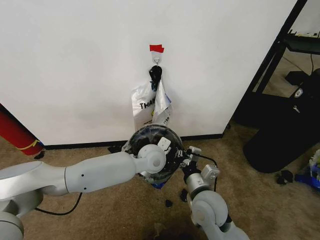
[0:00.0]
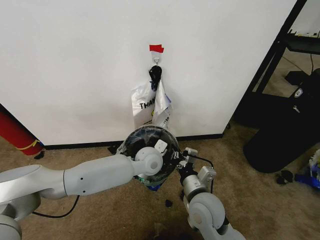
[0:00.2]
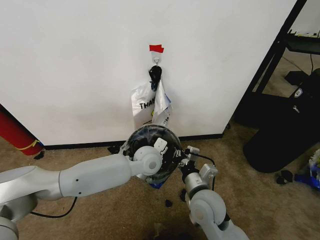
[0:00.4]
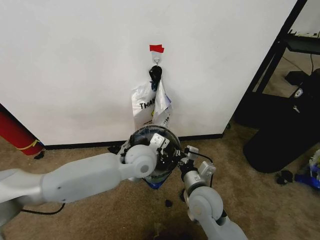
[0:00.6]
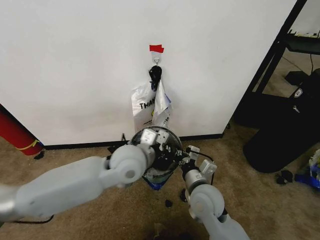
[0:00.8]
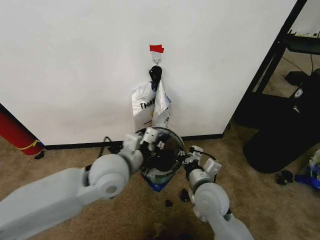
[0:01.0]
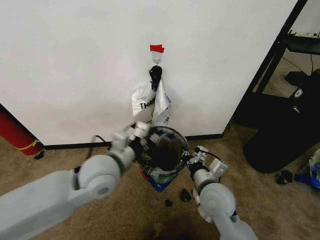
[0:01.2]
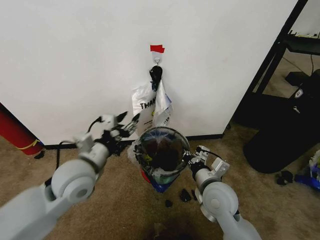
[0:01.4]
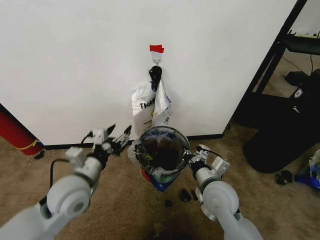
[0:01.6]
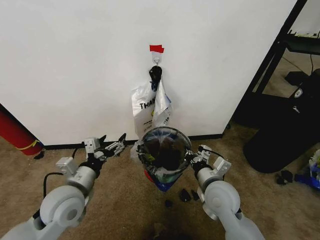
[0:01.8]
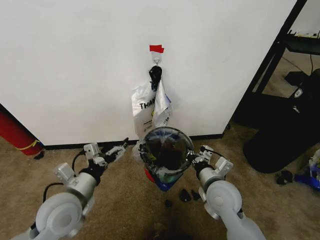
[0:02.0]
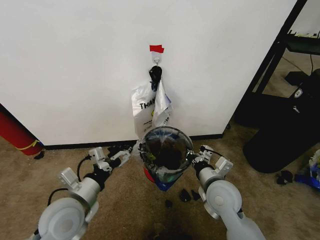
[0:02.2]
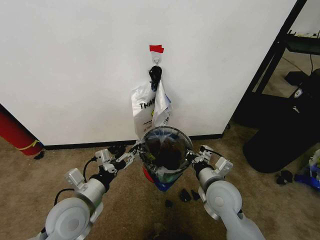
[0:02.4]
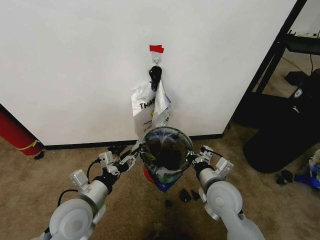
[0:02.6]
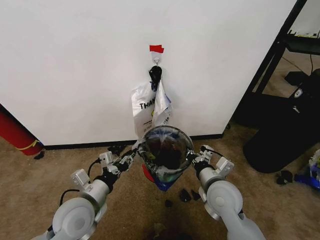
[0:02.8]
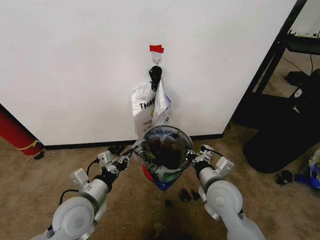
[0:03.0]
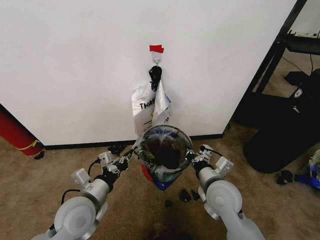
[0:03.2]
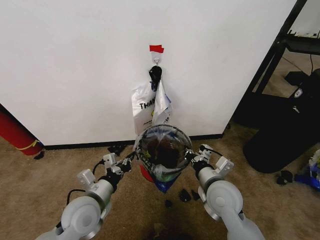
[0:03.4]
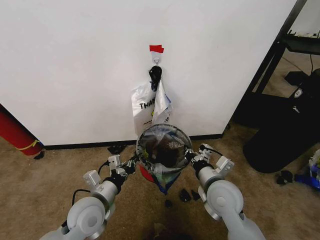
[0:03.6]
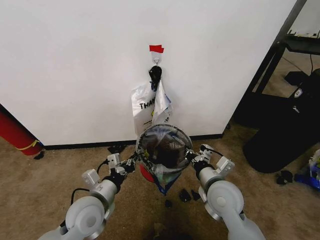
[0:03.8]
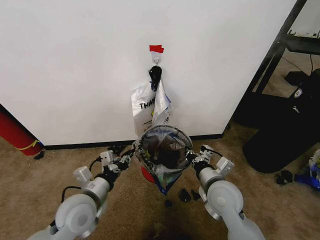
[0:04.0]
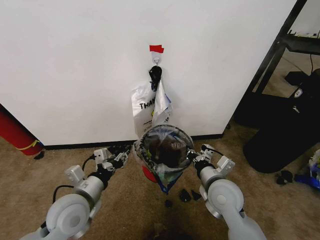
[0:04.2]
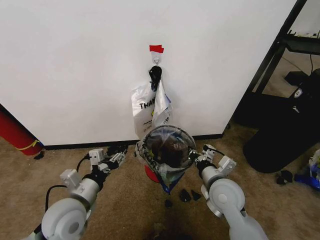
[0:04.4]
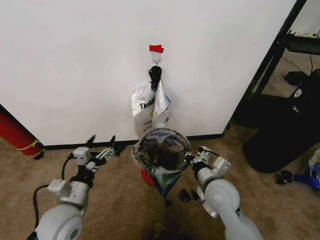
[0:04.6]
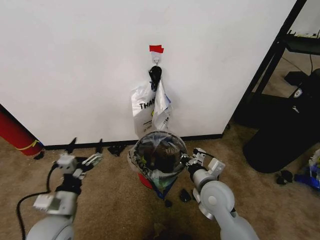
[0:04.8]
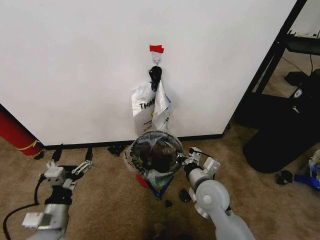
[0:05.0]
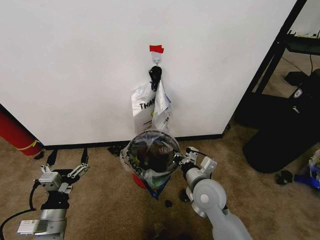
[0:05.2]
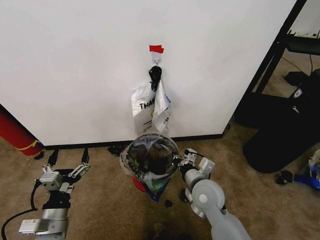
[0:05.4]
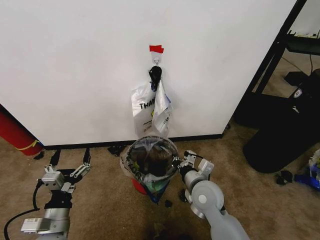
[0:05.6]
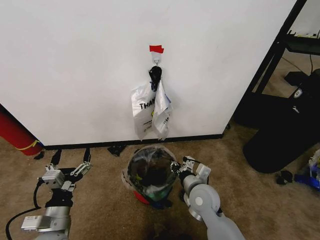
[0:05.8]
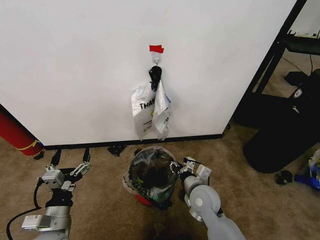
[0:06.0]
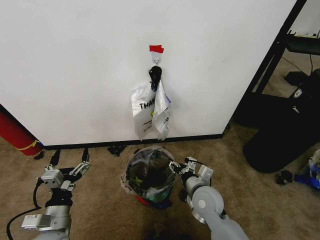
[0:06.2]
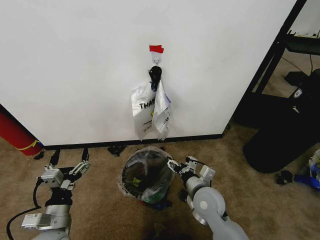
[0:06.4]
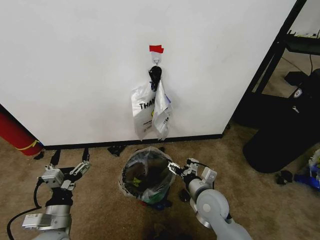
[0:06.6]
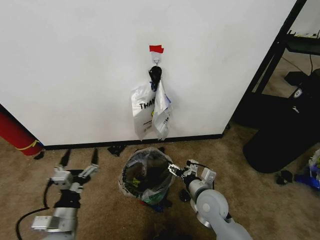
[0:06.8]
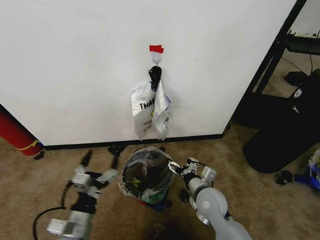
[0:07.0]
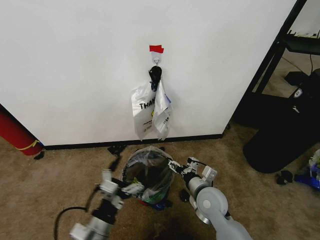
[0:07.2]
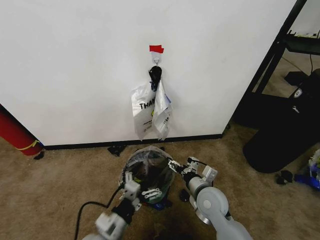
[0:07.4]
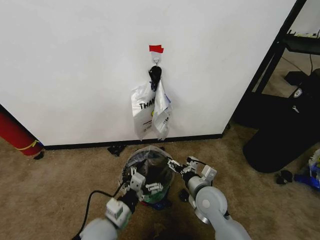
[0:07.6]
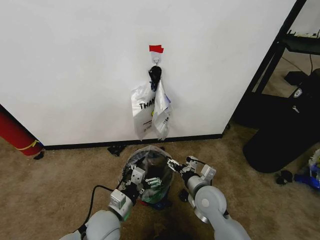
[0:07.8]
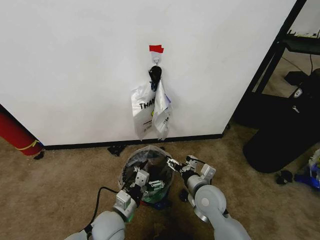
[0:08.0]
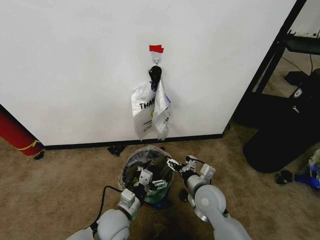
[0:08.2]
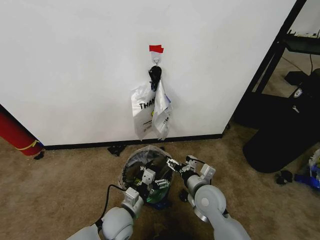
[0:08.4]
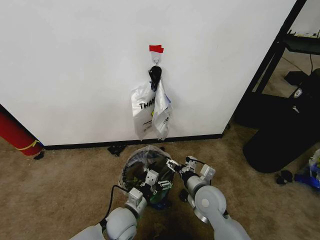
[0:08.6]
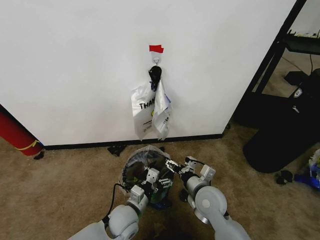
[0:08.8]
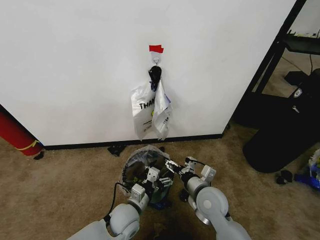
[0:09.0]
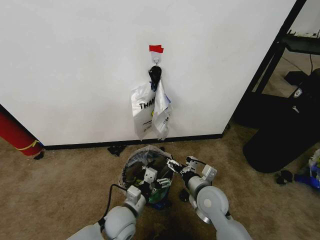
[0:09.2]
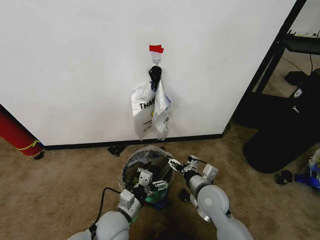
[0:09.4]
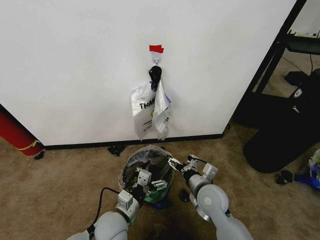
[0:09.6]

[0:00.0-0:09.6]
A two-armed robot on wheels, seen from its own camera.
Task of the whole recording: Pick up the garbage bag from the wall and place it over the trash bin.
0:00.0 to 0:01.6: The left gripper goes roughly 25 cm to the left and backward, and opens its fingers.
0:01.6 to 0:03.2: The left gripper travels downward by roughly 5 cm, and closes.
0:03.2 to 0:04.8: The left gripper heads to the left, covering roughly 5 cm, and opens.
0:04.8 to 0:06.4: The right gripper opens its fingers.
0:06.4 to 0:08.0: The left gripper goes approximately 15 cm to the right.
0:08.0 to 0:09.6: The grippers make only small movements.

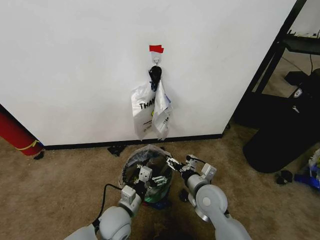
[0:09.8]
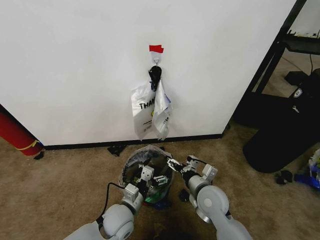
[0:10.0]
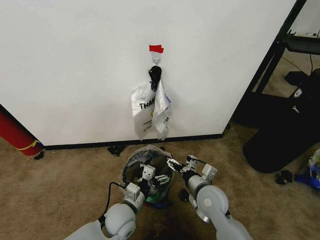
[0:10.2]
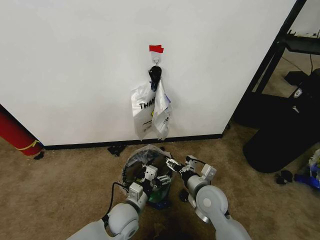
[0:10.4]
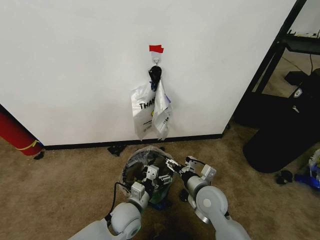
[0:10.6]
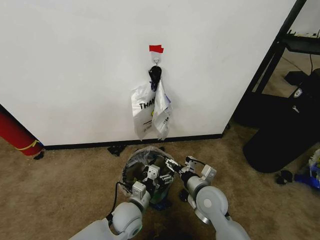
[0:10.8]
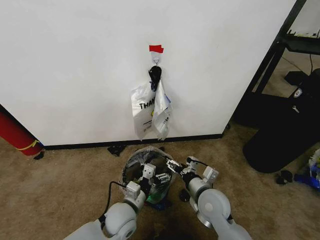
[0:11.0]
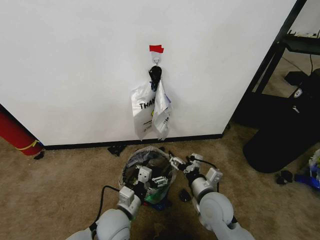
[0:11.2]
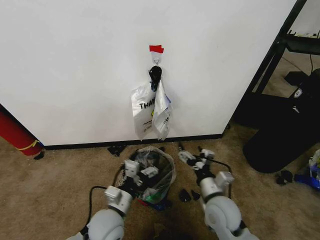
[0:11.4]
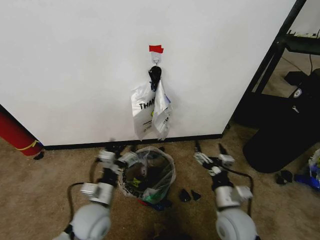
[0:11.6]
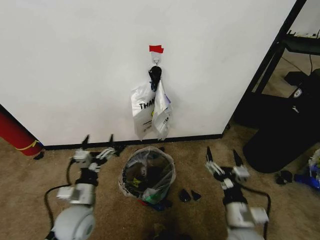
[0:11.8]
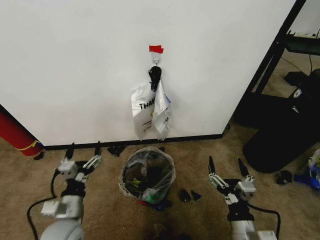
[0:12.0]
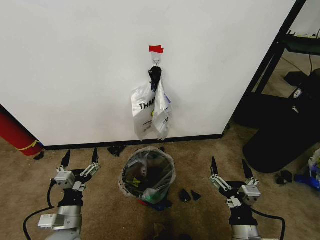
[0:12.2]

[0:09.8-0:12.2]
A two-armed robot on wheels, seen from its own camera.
Task of the whole recording: Pick up the garbage bag from the wall and place it over the trash bin.
0:09.8 to 0:11.0: The grippers stay close to where they were, moving slightly.
0:11.0 to 0:12.2: The right gripper is displaced backward by about 15 cm; the left gripper goes some 15 cm to the left and backward.
